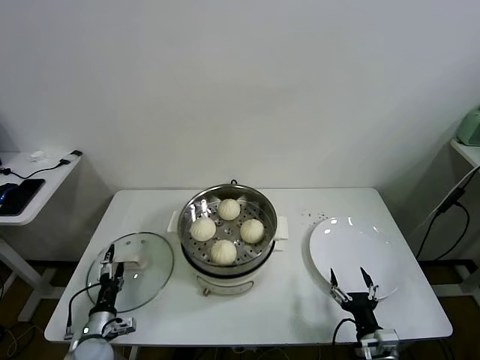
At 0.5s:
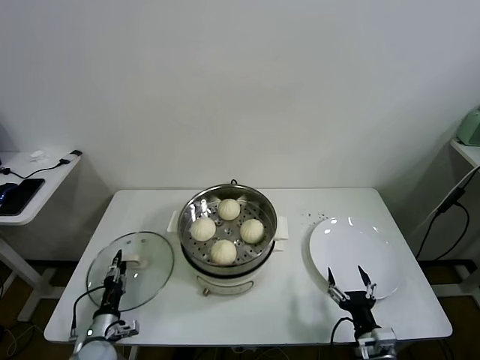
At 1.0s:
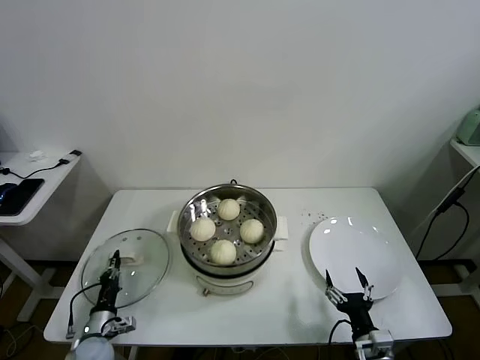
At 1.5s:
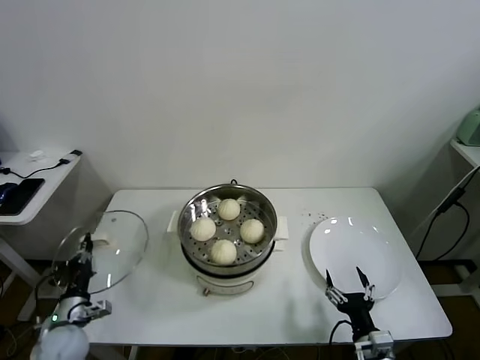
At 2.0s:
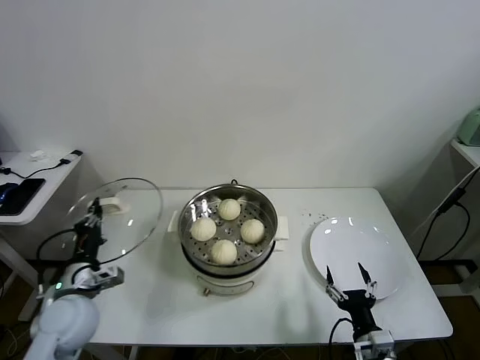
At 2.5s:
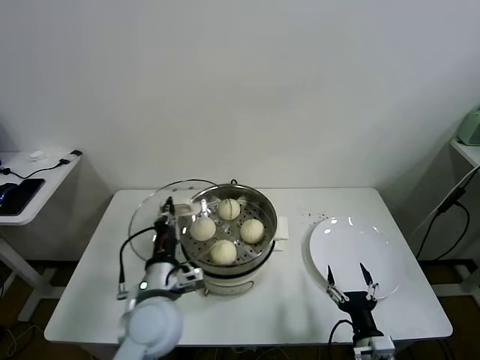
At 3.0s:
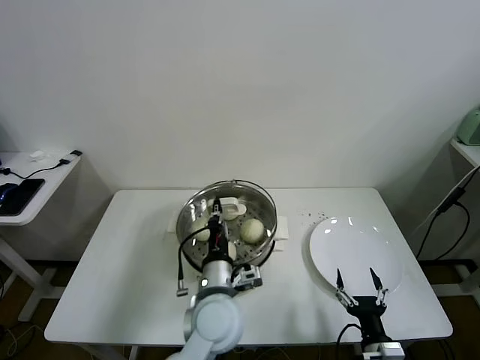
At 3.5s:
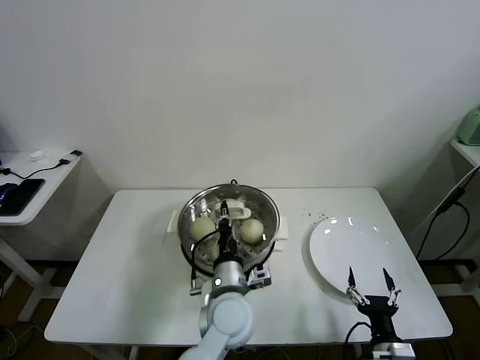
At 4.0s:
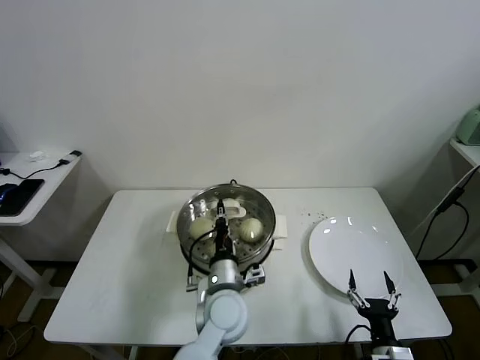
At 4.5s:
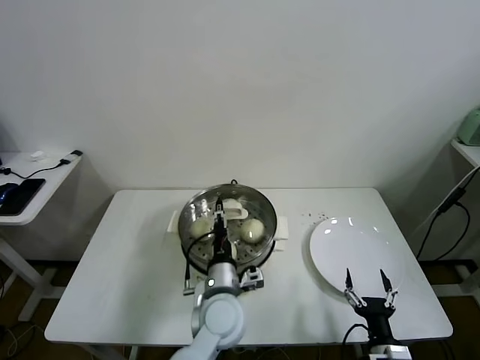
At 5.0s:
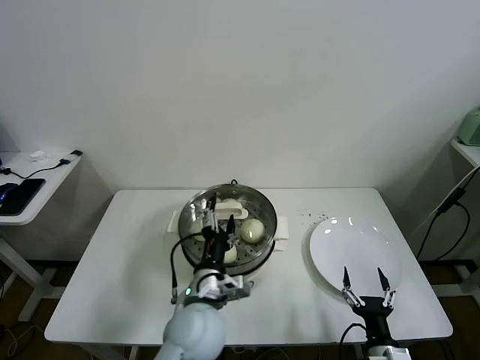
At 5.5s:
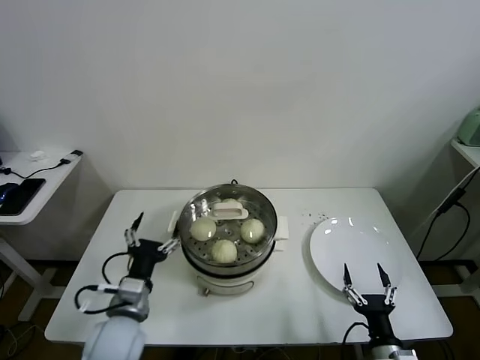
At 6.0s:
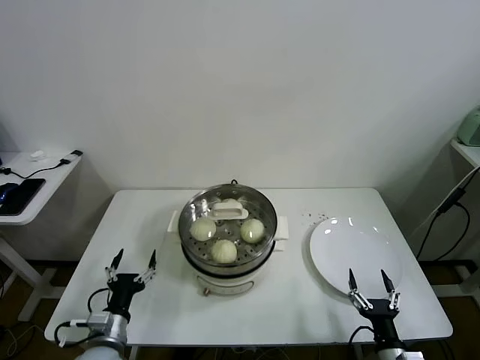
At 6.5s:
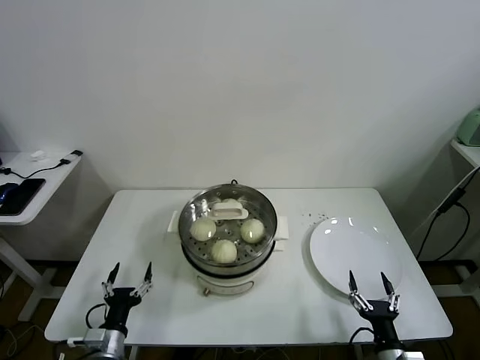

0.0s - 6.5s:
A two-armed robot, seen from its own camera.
Task of the whole recording: take steamed baozi put them in steamer.
Step, 1.0s - 4.5s: Place the pot lid on the steamer with left gripper.
0.0s - 2.0s: The left gripper is displaced upward by approximately 20 cm, and closes up.
2.0s - 4.5s: The left gripper shifts some 30 cm to the right.
4.5s - 6.5s: The left gripper goes about 30 cm to the left and downward, and opens.

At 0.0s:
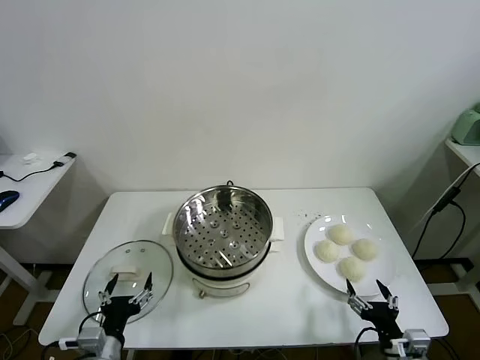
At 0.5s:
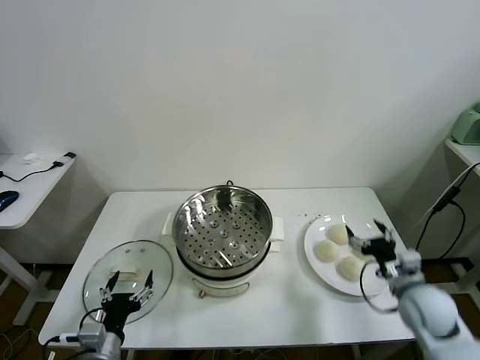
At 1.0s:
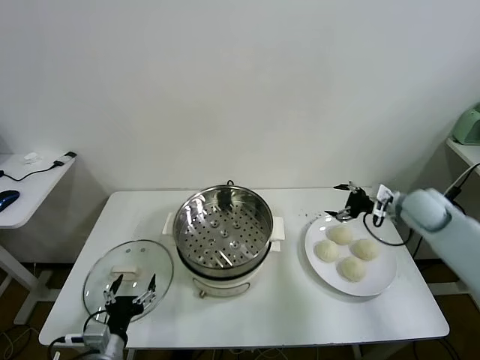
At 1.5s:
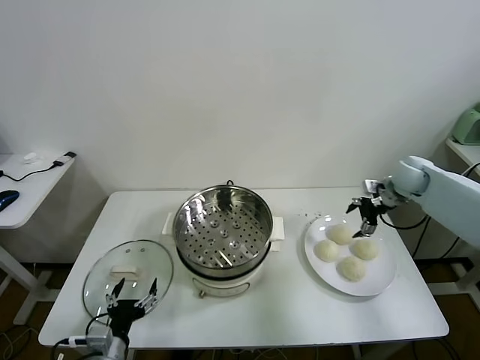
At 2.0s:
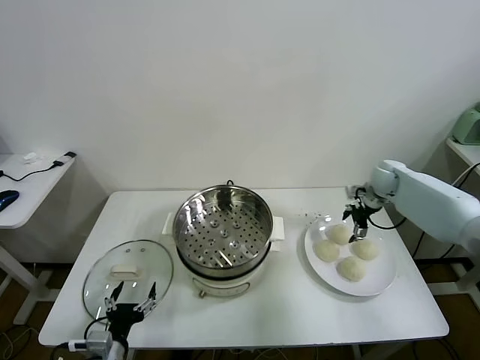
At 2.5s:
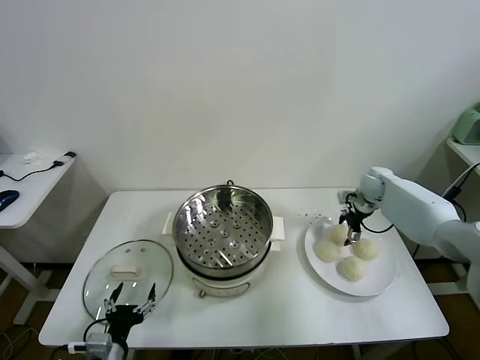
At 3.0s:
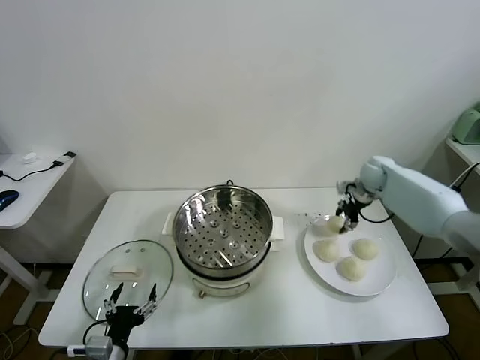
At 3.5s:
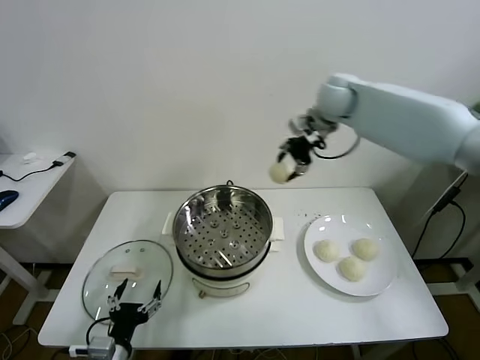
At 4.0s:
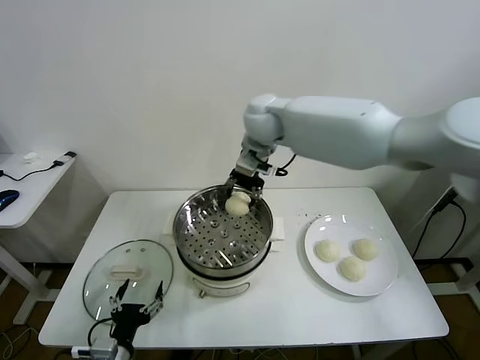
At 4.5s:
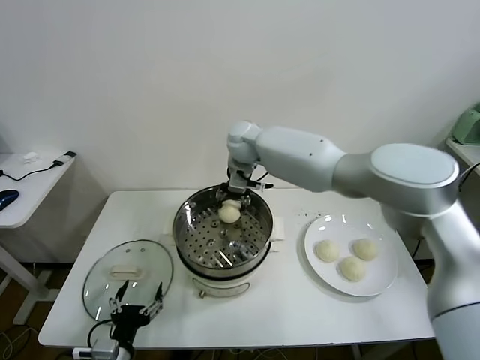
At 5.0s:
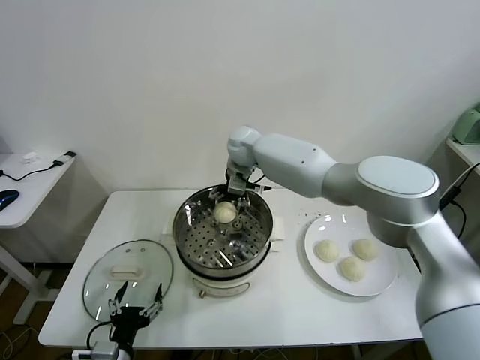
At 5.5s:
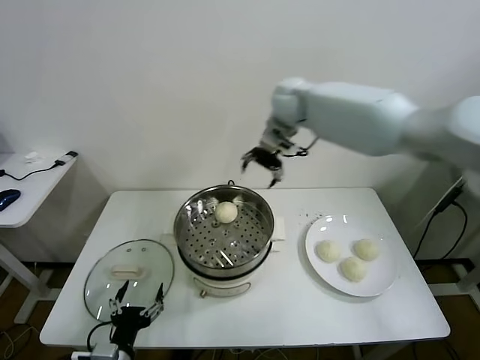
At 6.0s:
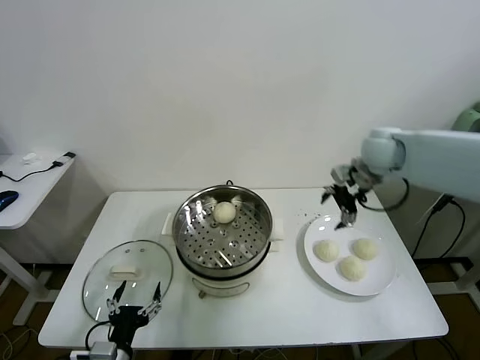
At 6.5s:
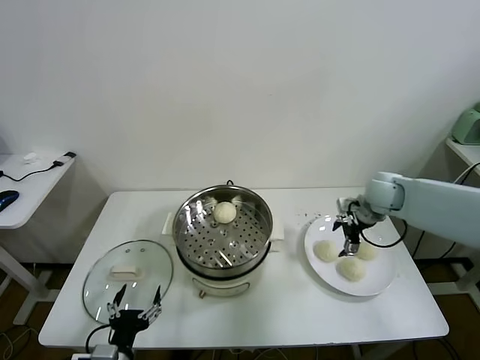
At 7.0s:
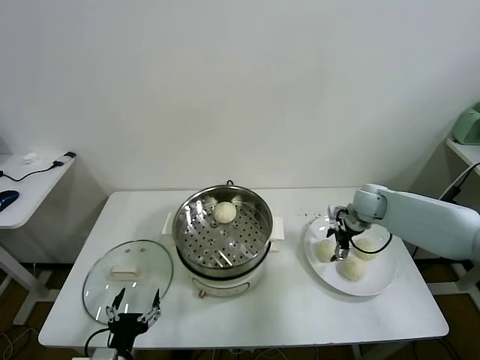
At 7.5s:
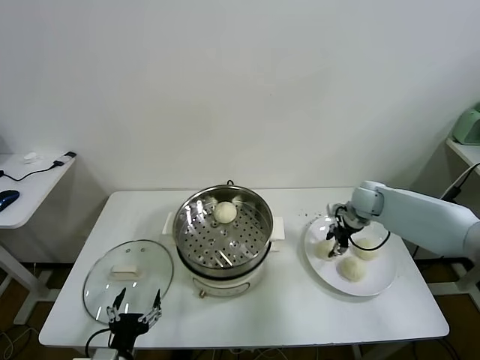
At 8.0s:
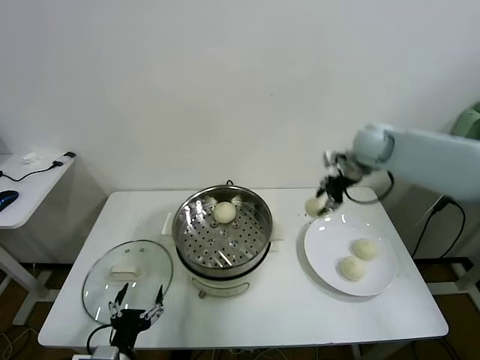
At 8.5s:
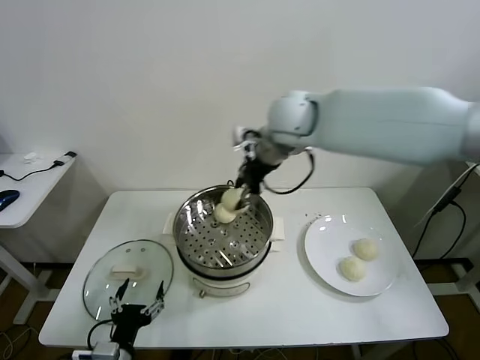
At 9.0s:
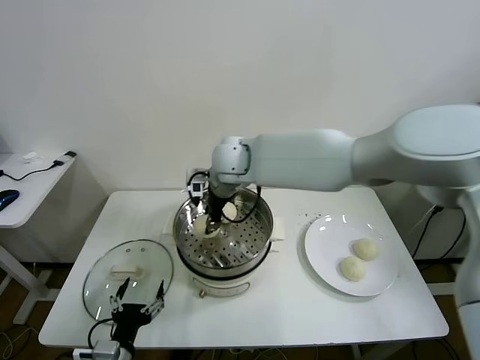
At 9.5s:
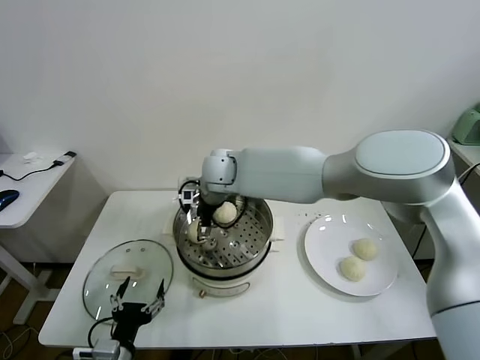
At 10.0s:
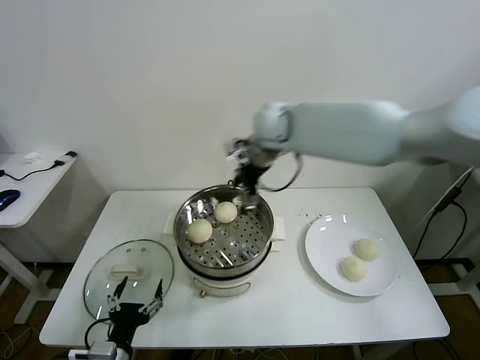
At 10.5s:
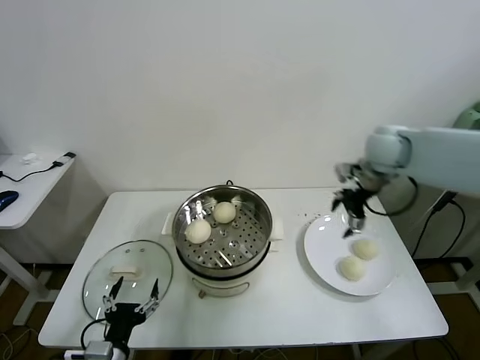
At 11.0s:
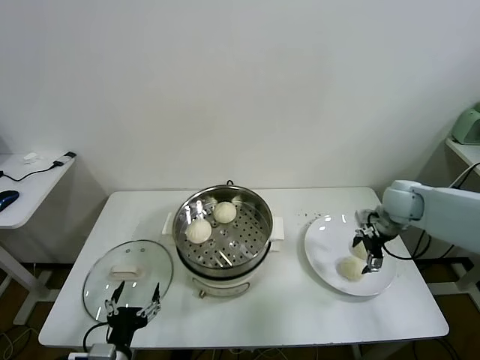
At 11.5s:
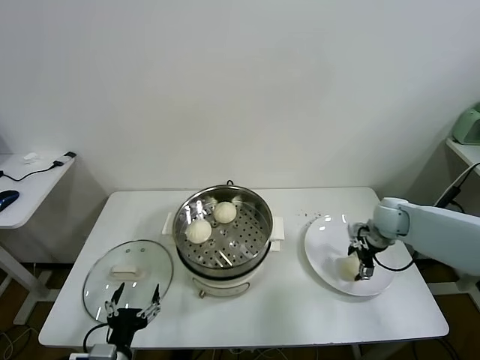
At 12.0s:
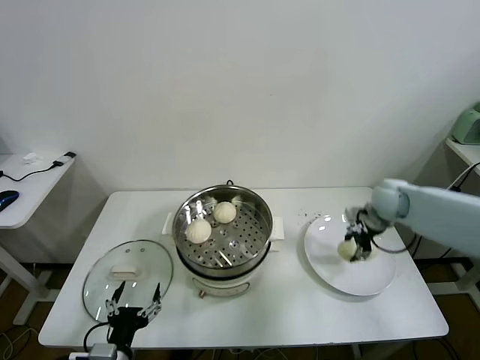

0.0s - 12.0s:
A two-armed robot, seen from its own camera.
Task of the whole recording: take steamed baozi put them in steamer.
Step, 0.0s - 2.5s: Grasp the baozi in the plate with right gripper.
Step, 3.0s - 5.0s: Place the baozi on the steamer with right gripper.
Step, 5.5s - 7.0s: Grasp the baozi in the plate with right gripper.
Step, 7.5s - 9.5s: Place the baozi on the steamer with right gripper.
Step, 10.0s - 11.5s: Grasp the baozi in the plate with right gripper.
2.0s - 4.0s: The right gripper heads to the left and upward, covering about 40 cm, and closes.
4.0s - 6.0s: The right gripper is displaced to the right by some 30 cm, and opens up.
6.0s - 8.0s: The right gripper reaches about 15 cm downward, then returns, and closes its fingers.
8.0s - 10.0s: The right gripper heads to the left, covering about 15 cm, and opens up.
10.0s - 12.0s: The right gripper shifts some 30 cm to the right and downward, and closes up.

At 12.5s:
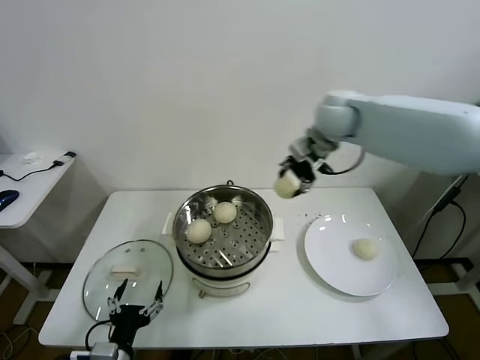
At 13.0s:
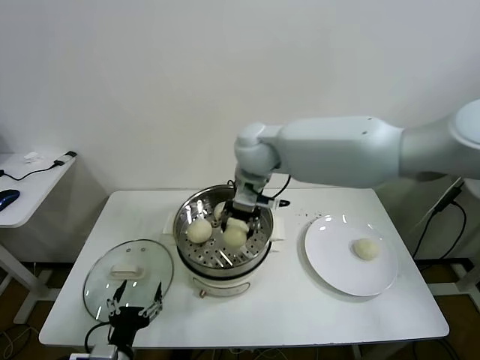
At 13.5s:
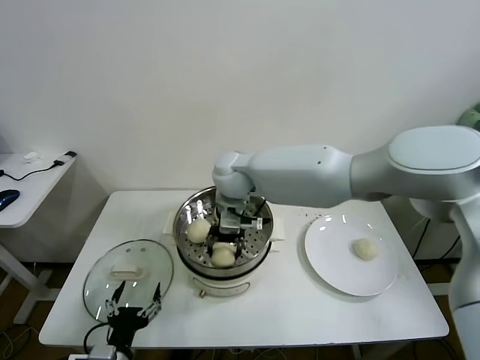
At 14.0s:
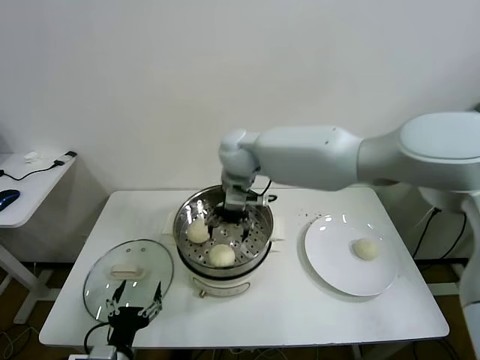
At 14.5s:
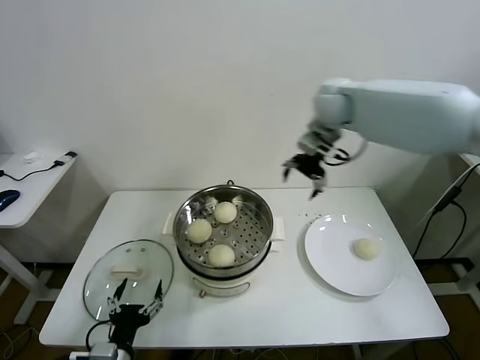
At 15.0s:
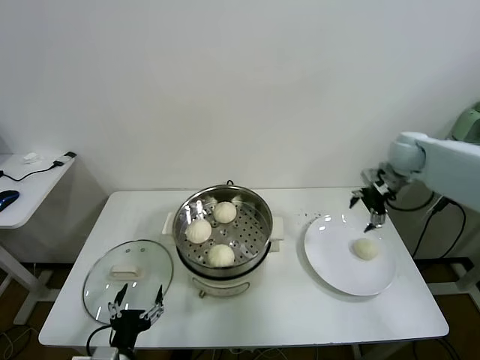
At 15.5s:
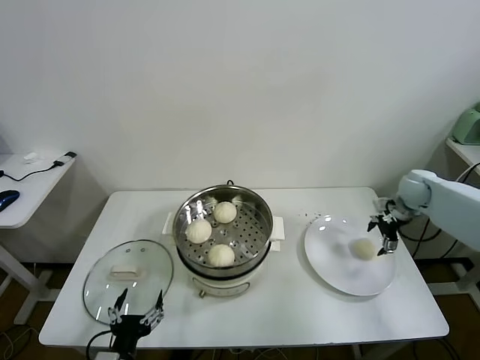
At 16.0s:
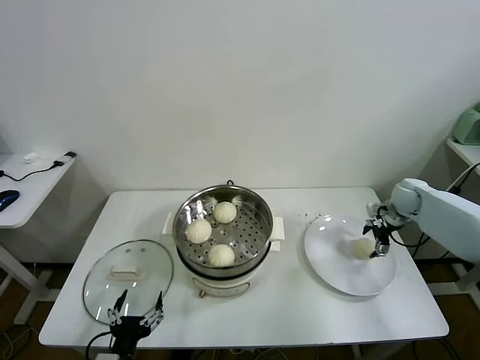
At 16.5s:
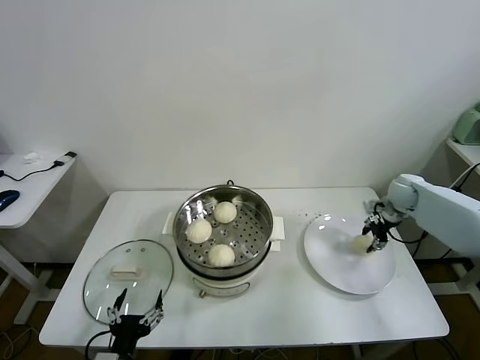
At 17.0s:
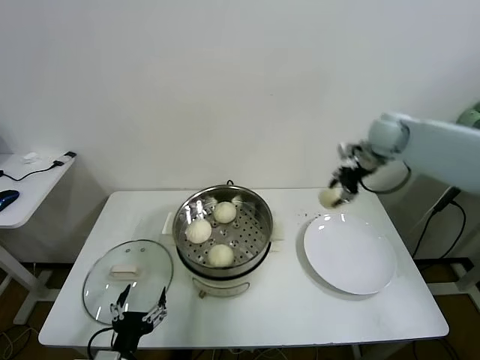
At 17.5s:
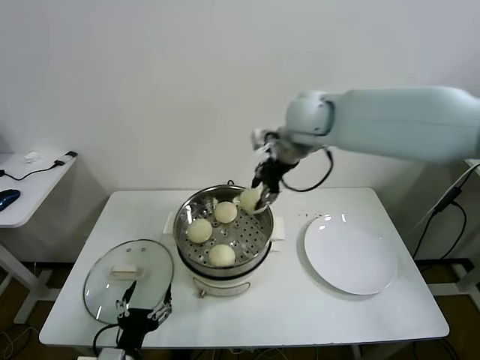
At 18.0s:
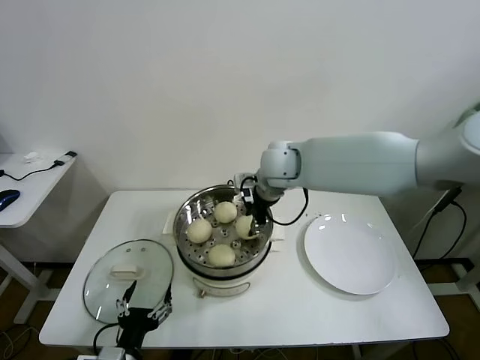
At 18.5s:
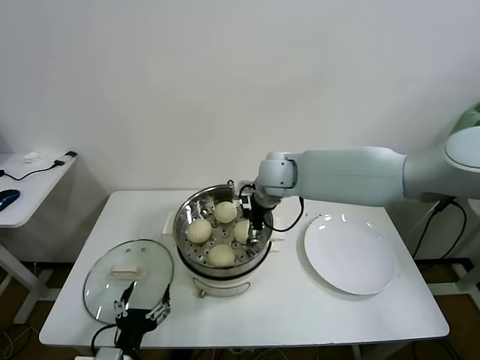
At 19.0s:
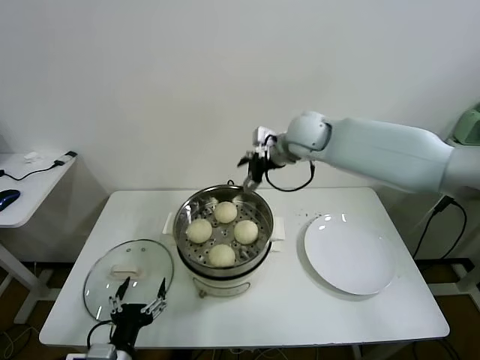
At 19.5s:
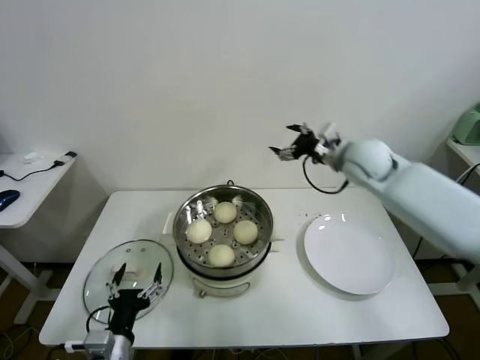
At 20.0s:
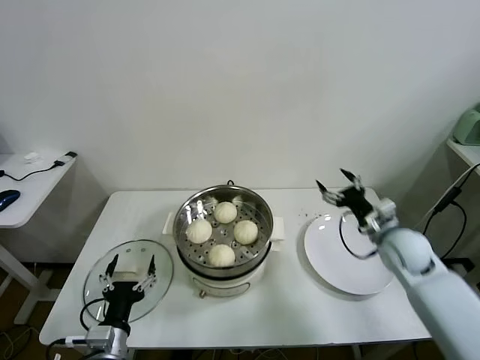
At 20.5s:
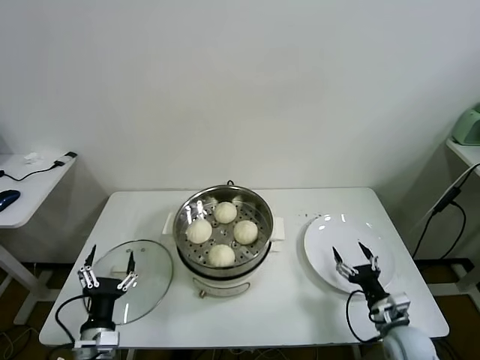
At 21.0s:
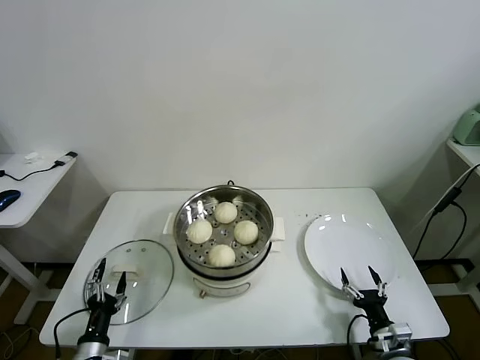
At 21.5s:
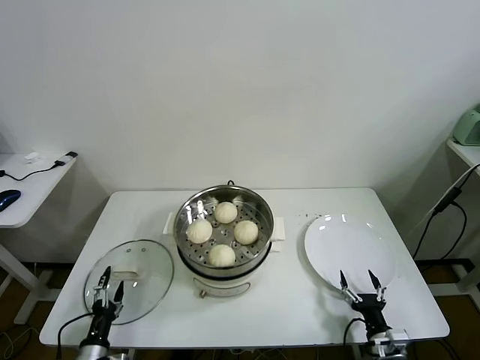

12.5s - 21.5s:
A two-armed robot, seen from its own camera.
Task of the whole recording: take steamed baozi put them in steamer.
Step, 12.5s - 13.5s: Place the baozi on the steamer with right gripper.
Step, 14.0s - 16.0s: Grasp the baozi in the plate with right gripper.
Step, 17.0s - 18.5s: Place the baozi on the steamer with right gripper.
12.5s - 14.5s: The right gripper reaches some 20 cm to the left, then returns, and opens its fingers.
14.5s - 17.0s: The right gripper shifts some 10 cm to the right, reaches roughly 25 cm downward, then returns, and closes its fingers.
17.0s - 19.5s: The right gripper heads backward and downward, covering roughly 10 cm, goes to the left and returns, about 25 cm each way, and opens its fingers.
19.5s - 21.5s: The right gripper moves downward and backward, approximately 50 cm; the left gripper heads downward and to the left, covering about 20 cm.
